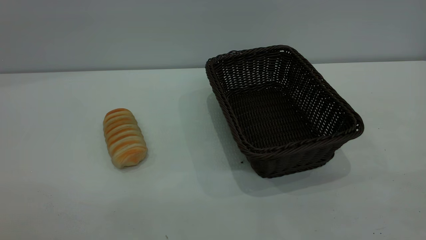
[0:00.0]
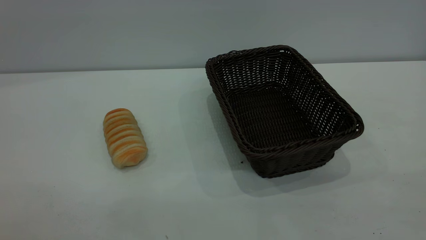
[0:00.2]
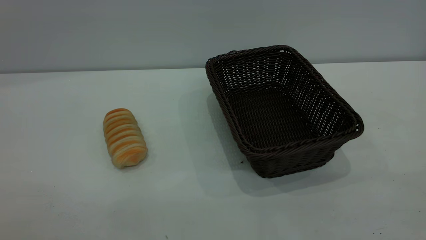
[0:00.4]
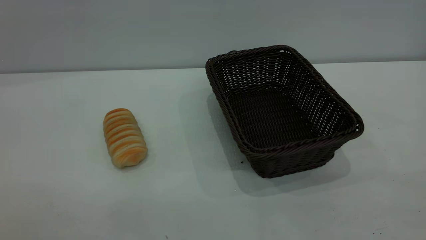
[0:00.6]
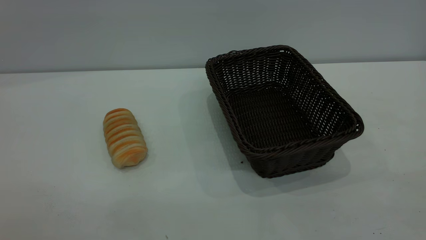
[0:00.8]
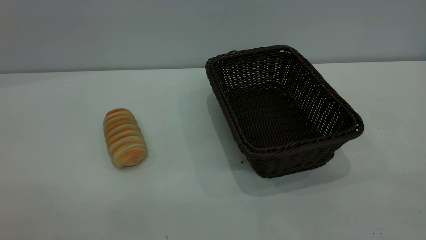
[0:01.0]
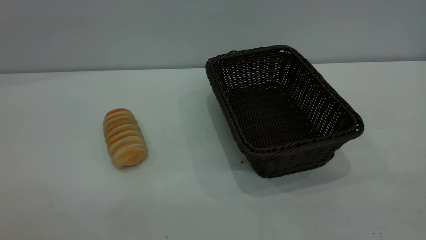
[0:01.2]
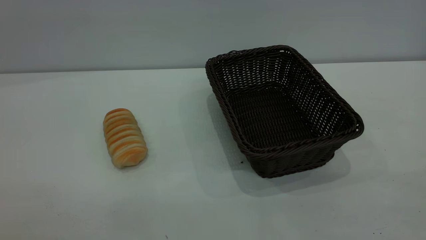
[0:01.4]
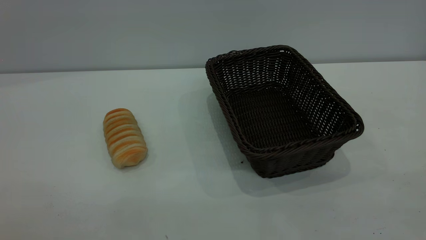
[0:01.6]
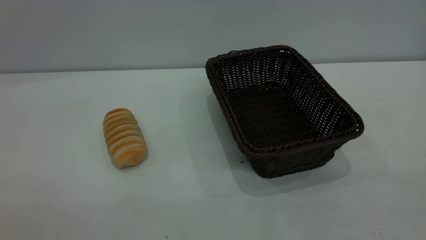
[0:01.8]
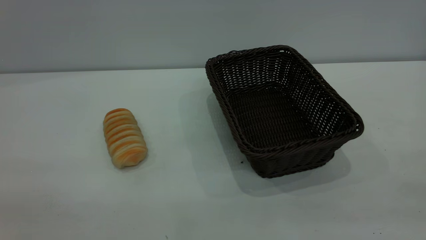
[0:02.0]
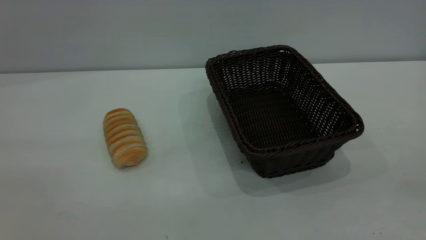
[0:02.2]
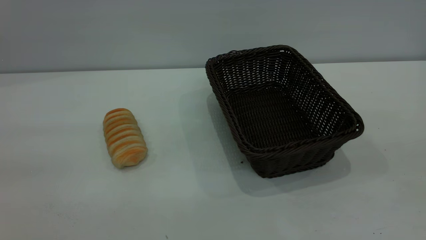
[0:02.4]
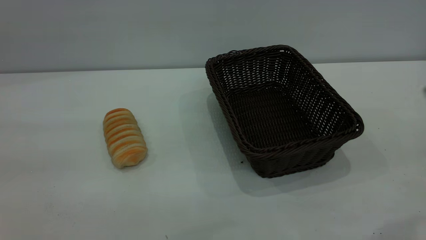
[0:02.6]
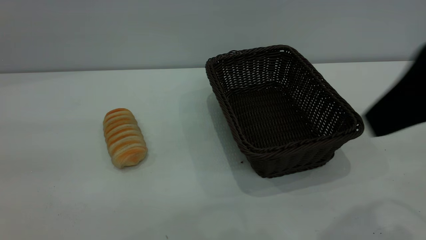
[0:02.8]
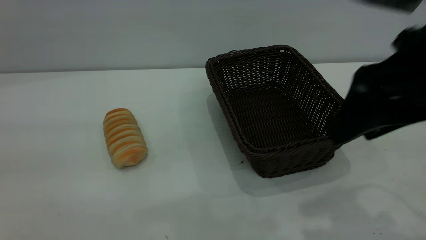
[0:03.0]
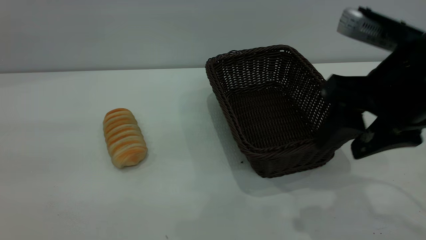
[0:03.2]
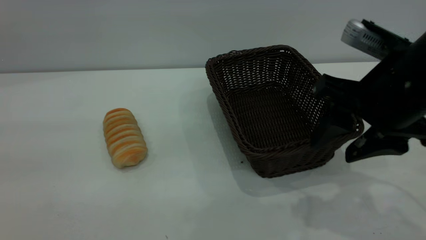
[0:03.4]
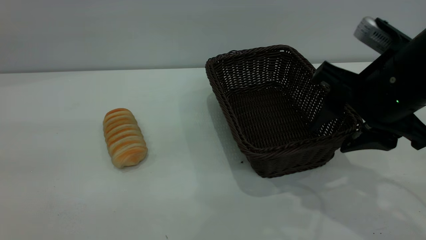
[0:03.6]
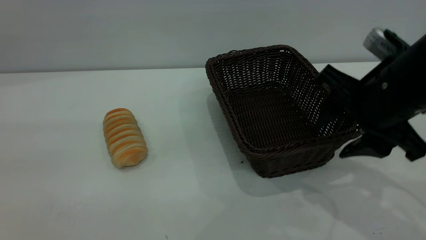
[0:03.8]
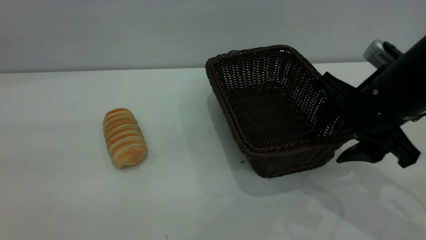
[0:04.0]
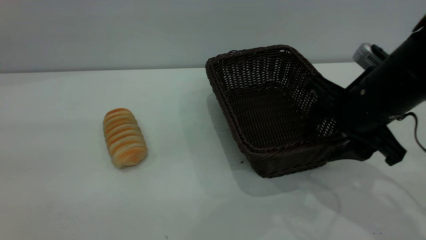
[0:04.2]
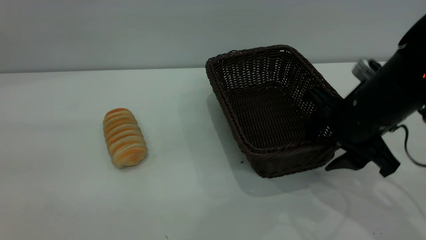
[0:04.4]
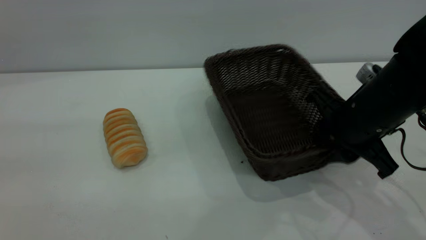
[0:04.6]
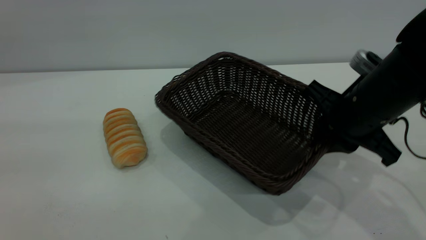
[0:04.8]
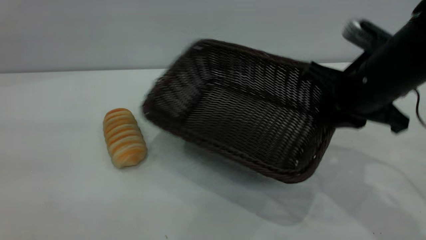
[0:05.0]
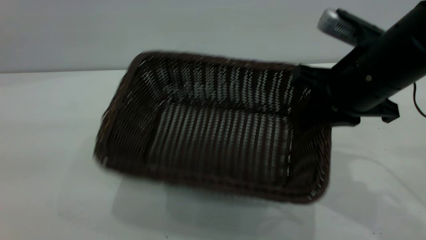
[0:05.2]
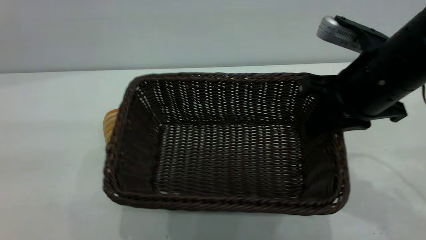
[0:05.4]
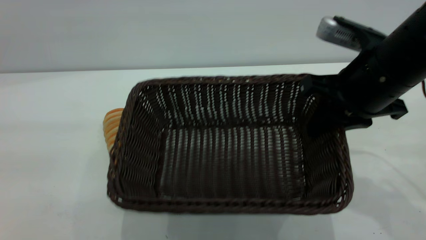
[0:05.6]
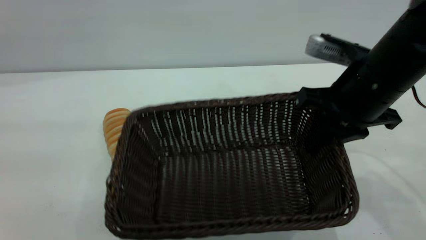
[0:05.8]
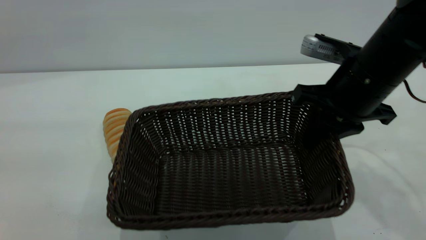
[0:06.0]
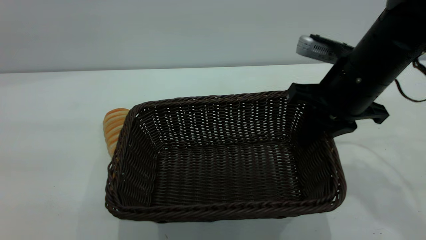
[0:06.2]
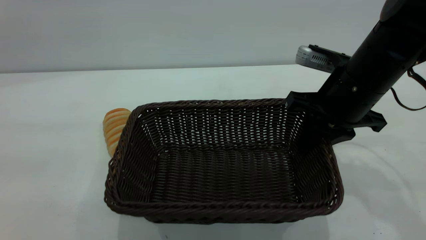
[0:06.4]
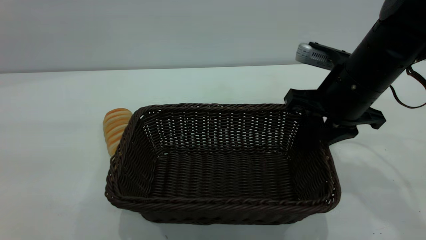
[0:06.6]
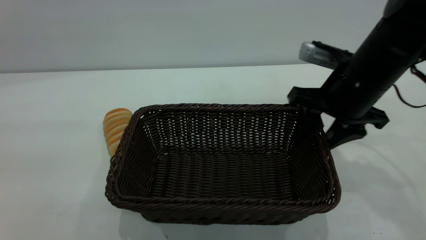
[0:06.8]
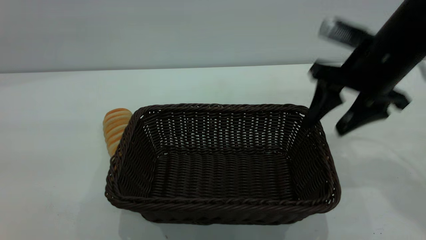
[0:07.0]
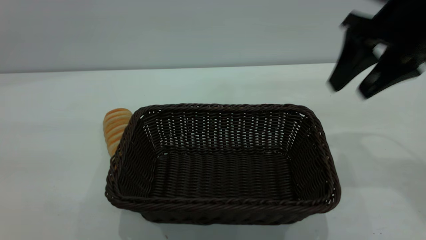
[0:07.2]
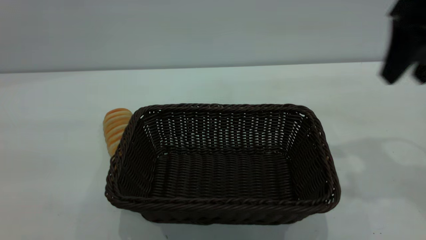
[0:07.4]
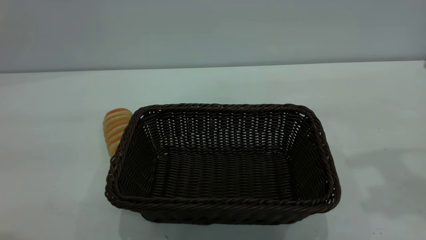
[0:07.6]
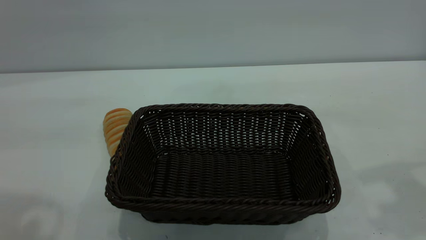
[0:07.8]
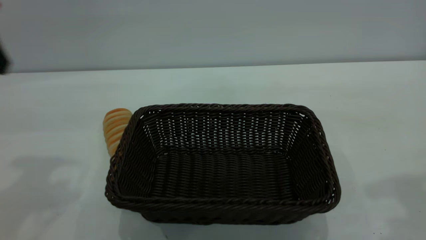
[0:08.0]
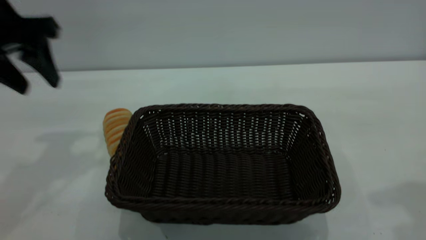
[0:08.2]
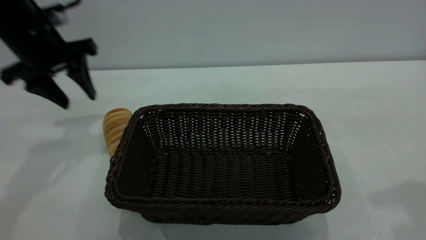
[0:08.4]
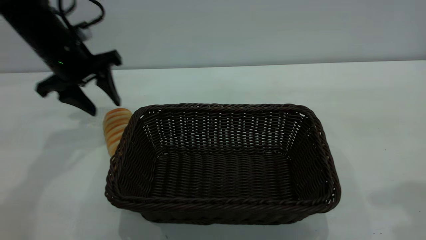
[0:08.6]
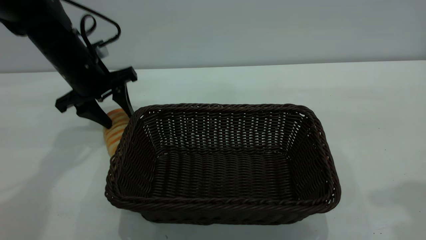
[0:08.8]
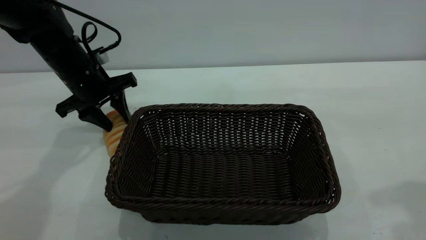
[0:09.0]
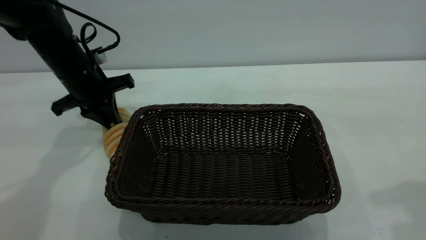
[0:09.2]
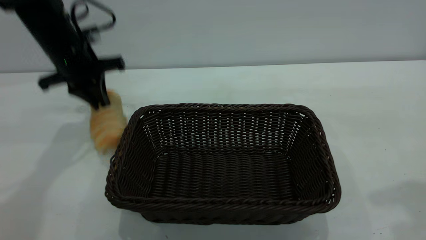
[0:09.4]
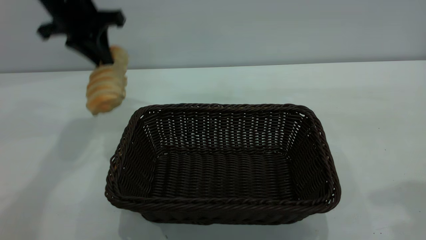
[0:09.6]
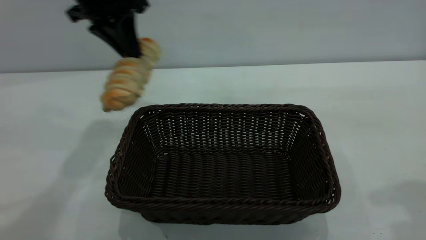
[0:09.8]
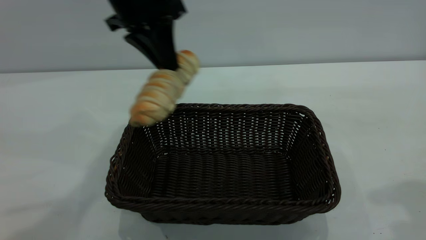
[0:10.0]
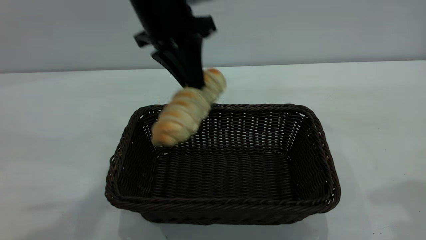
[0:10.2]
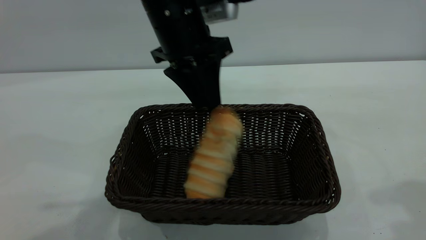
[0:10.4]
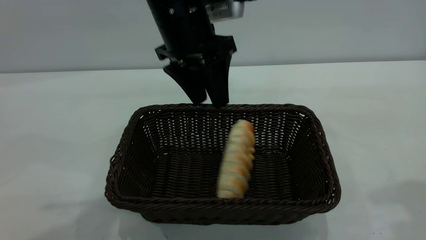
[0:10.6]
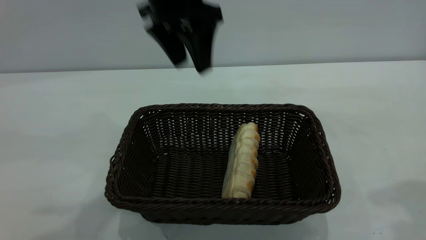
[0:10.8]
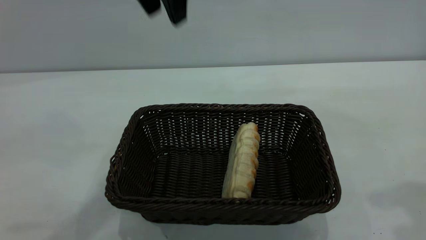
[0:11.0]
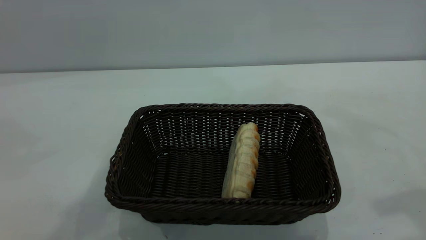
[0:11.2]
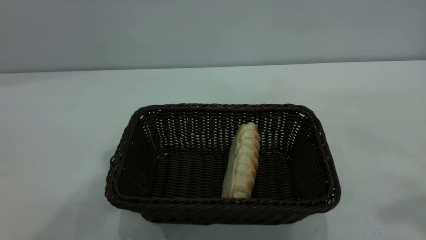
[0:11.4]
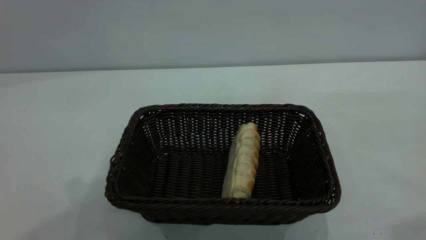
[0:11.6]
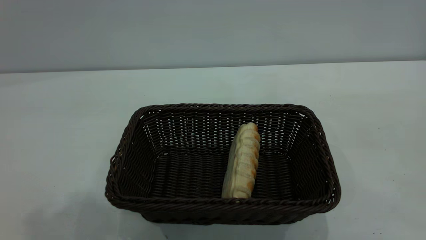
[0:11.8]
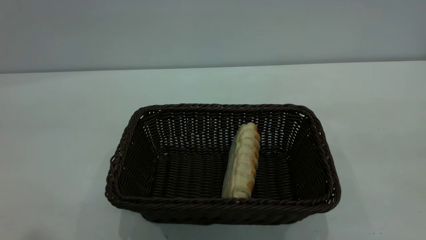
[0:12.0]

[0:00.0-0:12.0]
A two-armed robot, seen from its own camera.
Task of the whole recording: One hand grasps the black basket and places it in the middle of the table, while the other hand picks up the long bread and puts it into the black basket.
Step, 0:00.0 to 0:07.0: Move the basket to the center of view.
Step, 0:09.8 to 0:10.6: place the bread into the basket.
0:00.0 to 0:01.6: Both grippers stay about where they are.
0:01.6 to 0:03.0: The right gripper is displaced forward and to the left by some 25 cm.
0:03.0 to 0:04.4: The right gripper travels downward and forward by about 15 cm.
0:04.4 to 0:06.0: The right gripper closes its fingers.
0:06.0 to 0:07.6: The left gripper goes about 5 cm forward; the right gripper moves upward and to the right, some 20 cm, and opens up.
0:07.6 to 0:09.0: The left gripper moves forward and downward, roughly 35 cm; the right gripper is displaced backward by some 5 cm.
0:09.0 to 0:10.4: The left gripper travels to the right and upward by approximately 20 cm, and closes, then reopens.
0:10.4 to 0:12.0: The right gripper shifts roughly 15 cm backward and upward; the left gripper moves backward, upward and to the left, about 40 cm, and opens.

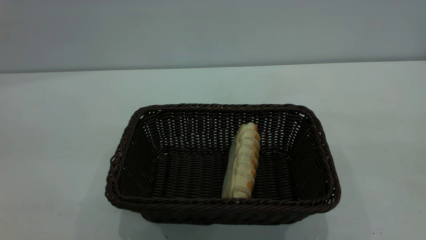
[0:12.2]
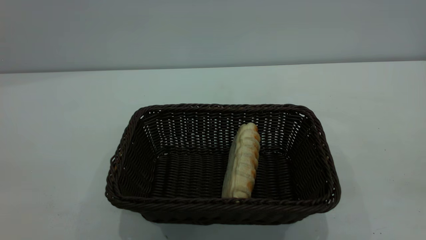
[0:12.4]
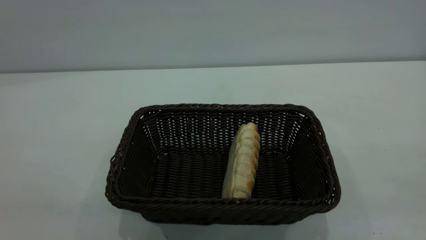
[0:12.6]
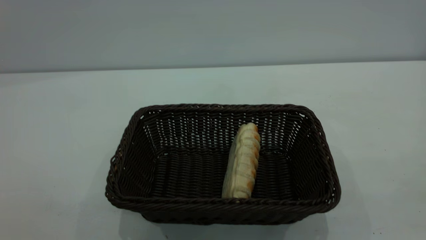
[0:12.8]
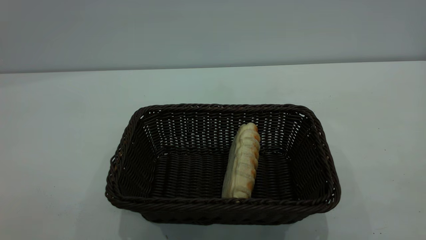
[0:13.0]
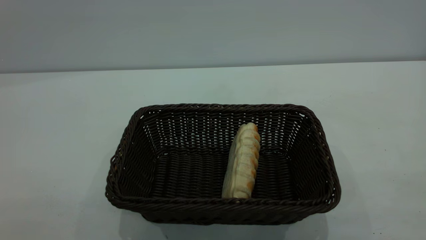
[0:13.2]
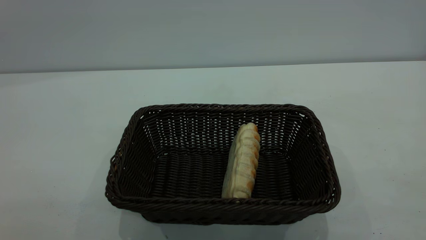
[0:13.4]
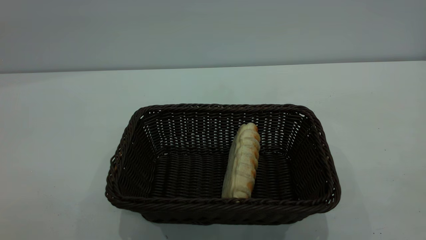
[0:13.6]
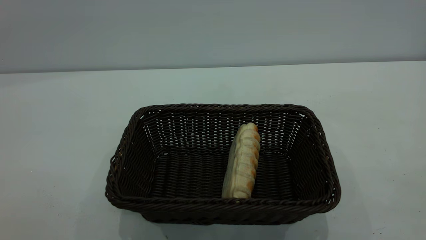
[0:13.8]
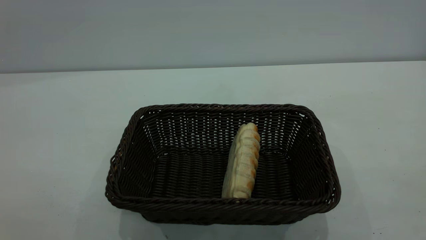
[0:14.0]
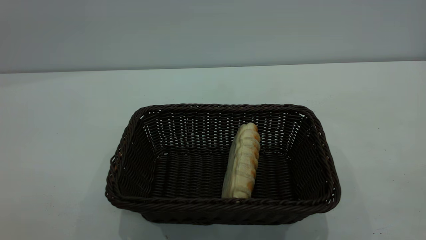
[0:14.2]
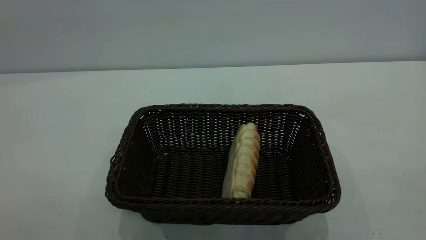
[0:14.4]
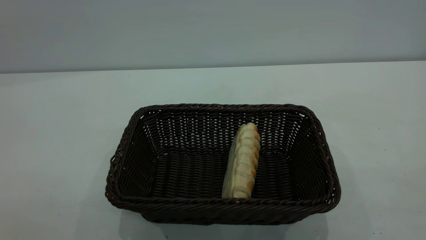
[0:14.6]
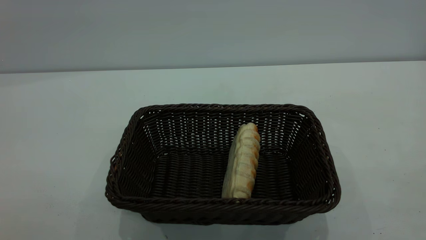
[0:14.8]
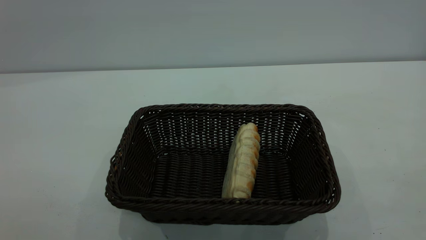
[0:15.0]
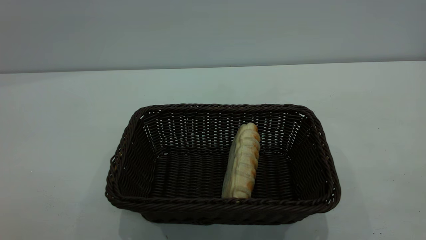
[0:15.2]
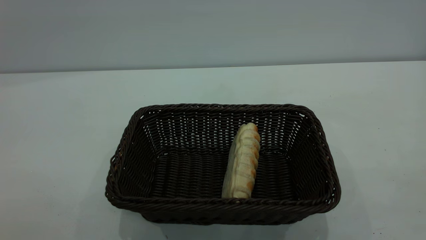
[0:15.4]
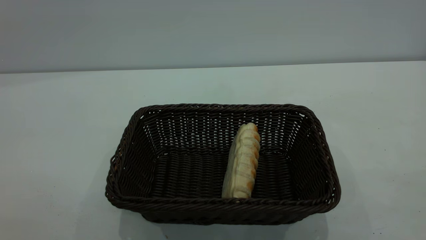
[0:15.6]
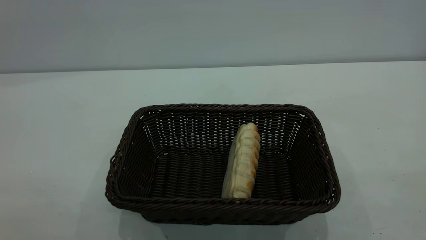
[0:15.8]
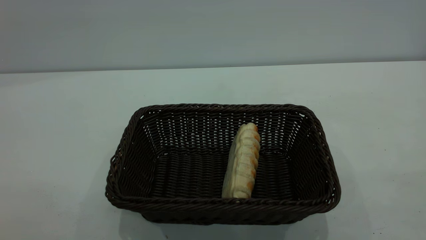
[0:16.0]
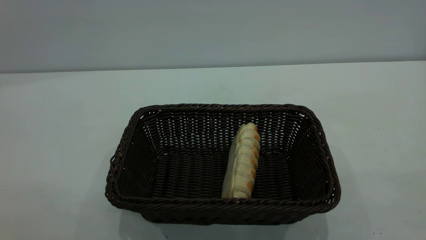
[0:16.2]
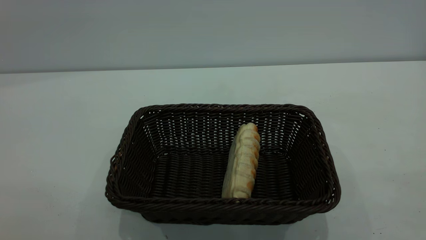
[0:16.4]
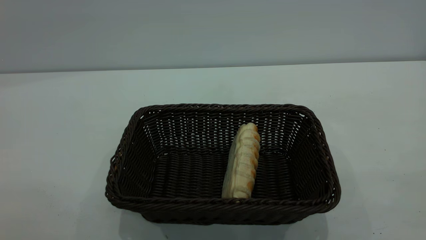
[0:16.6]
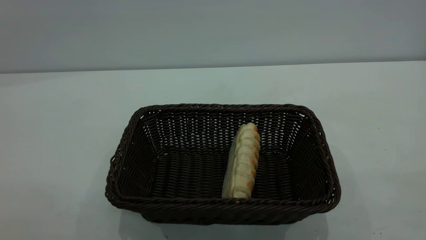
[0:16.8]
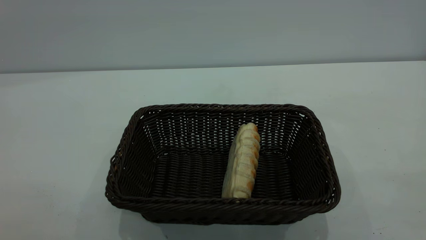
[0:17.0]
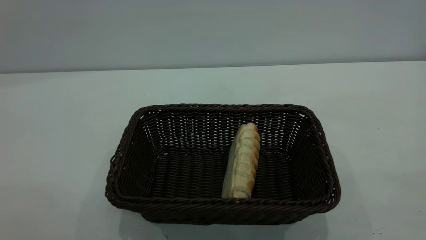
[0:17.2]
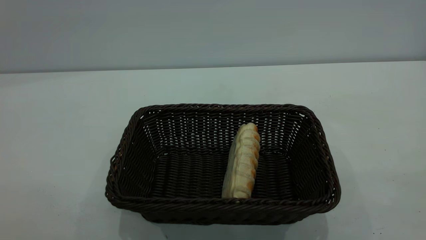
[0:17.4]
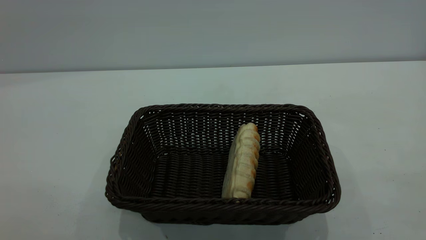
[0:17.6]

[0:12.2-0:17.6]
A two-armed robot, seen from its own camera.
Task of the whole recording: One hand grasps the black basket and places it in the middle of the table, while the other hand picks up the long bread and puts it into the black basket.
0:13.6 to 0:15.0: The two grippers keep their place.
0:16.2 to 0:17.6: Both grippers stay put.
